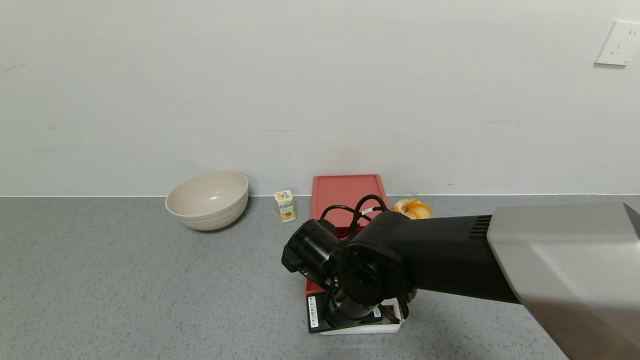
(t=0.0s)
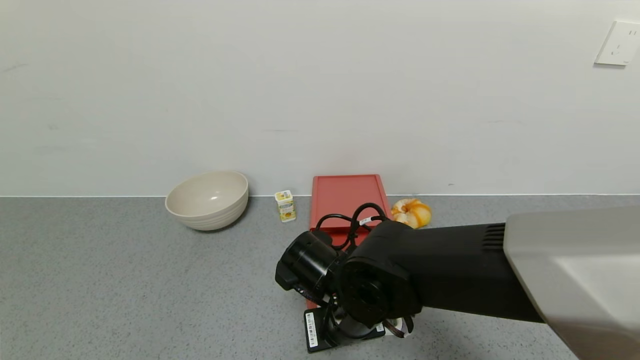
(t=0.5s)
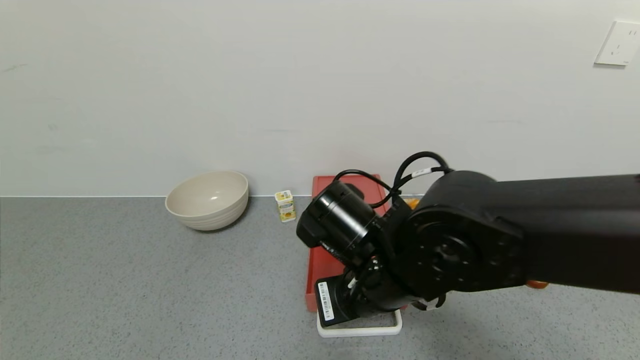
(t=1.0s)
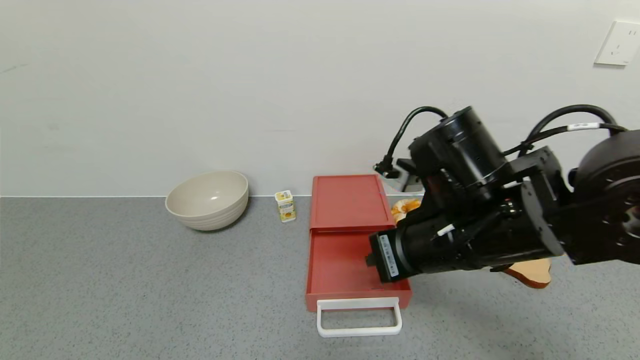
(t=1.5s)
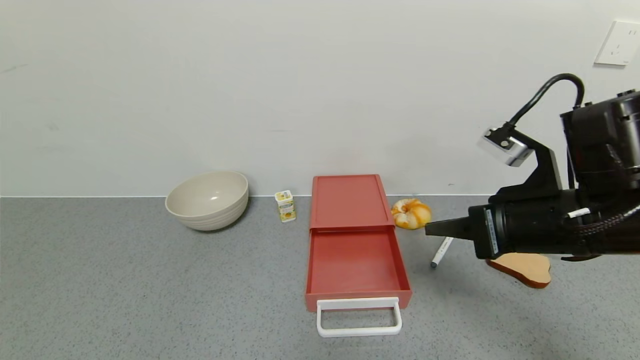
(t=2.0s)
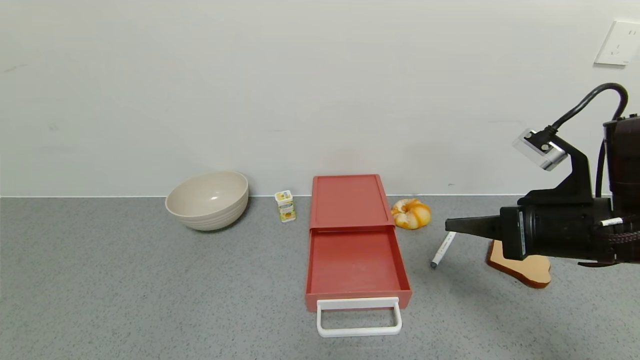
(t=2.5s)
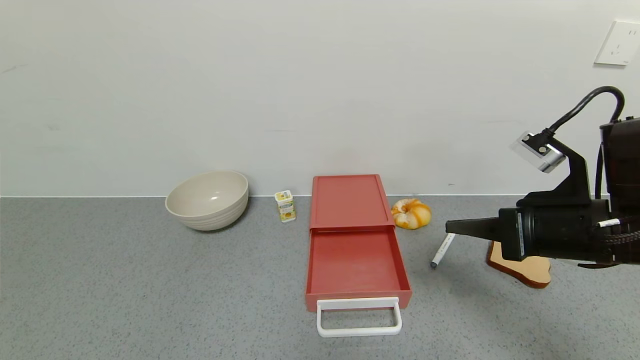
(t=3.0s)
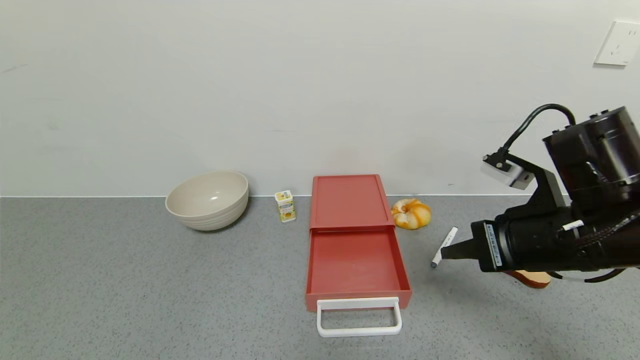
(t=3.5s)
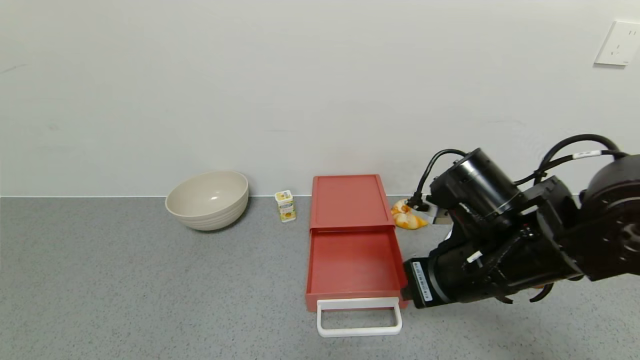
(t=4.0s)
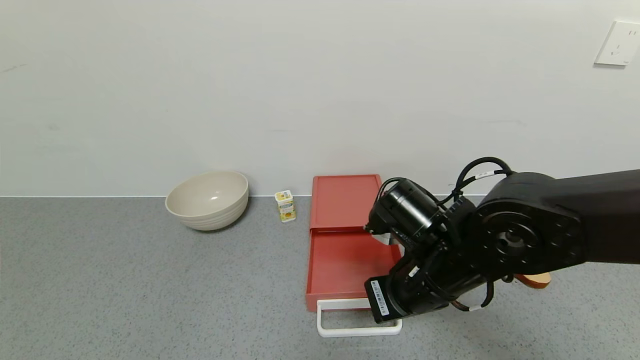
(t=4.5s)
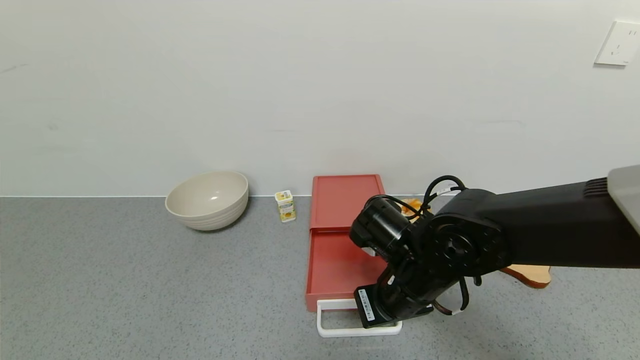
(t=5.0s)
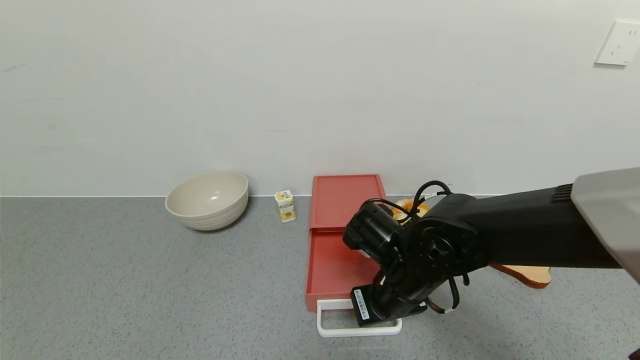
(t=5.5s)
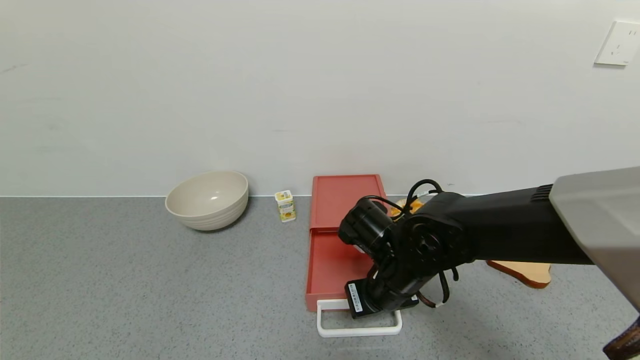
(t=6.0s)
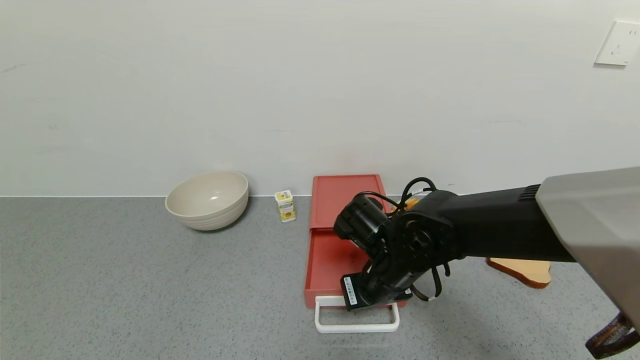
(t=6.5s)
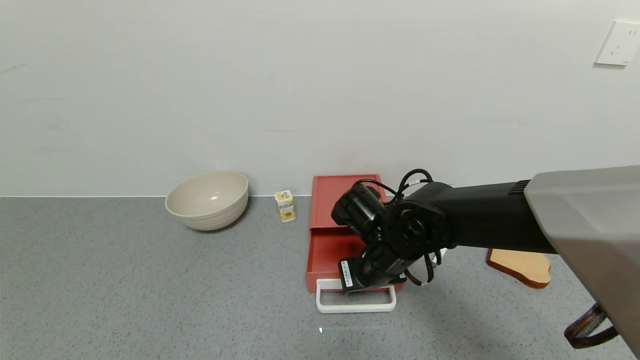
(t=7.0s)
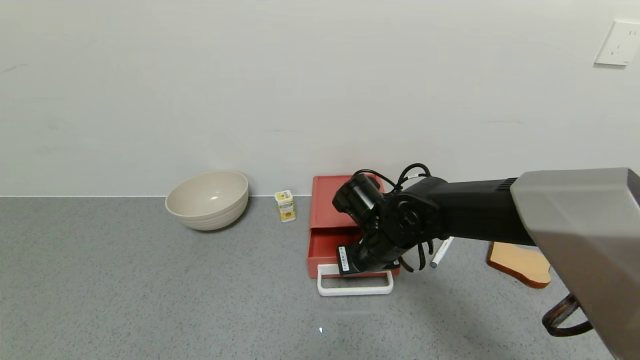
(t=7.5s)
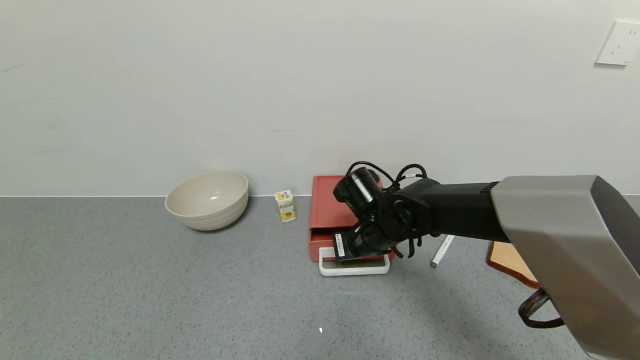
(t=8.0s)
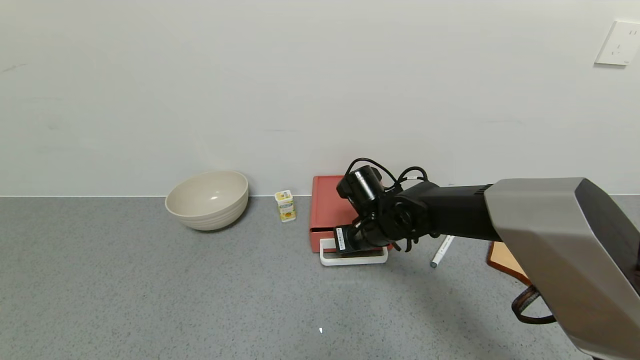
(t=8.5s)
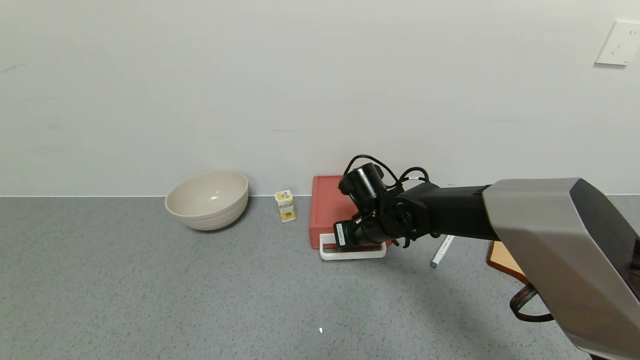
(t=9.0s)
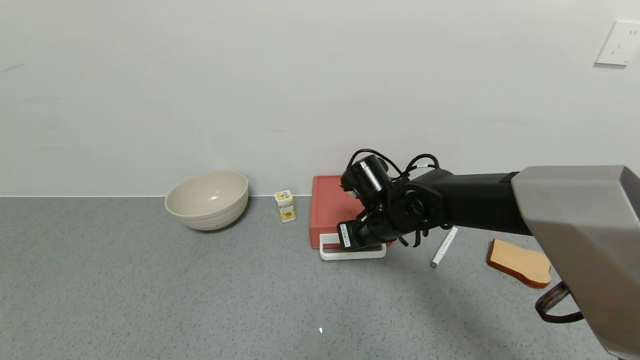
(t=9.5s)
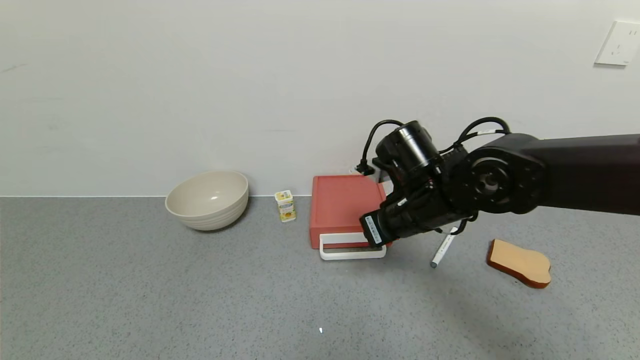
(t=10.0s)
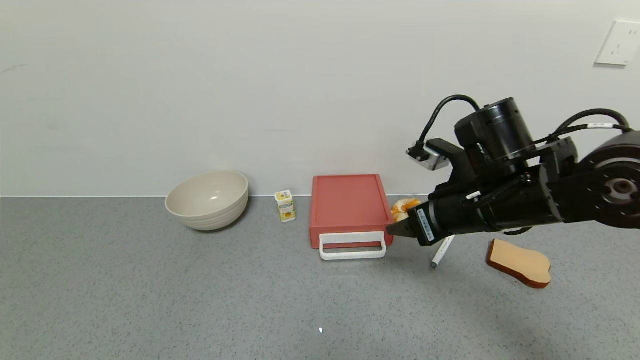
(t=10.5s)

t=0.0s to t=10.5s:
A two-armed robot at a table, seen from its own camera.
Task of the whole recording: use the gripper to open the drawer and close the red drawer.
Step, t=1.5s to t=10.0s: Close the red drawer with right gripper.
t=0.0s to t=2.0s: The right gripper heads to the right and upward, covering about 25 cm.
t=2.0s to t=4.0s: The right gripper travels to the left by roughly 5 cm.
t=4.0s to t=6.5s: The right gripper goes about 15 cm downward, to the left and forward.
t=6.5s to t=8.5s: The right gripper is displaced forward by roughly 10 cm.
t=8.5s to t=10.5s: The right gripper goes about 20 cm upward, to the right and backward, and opens up.

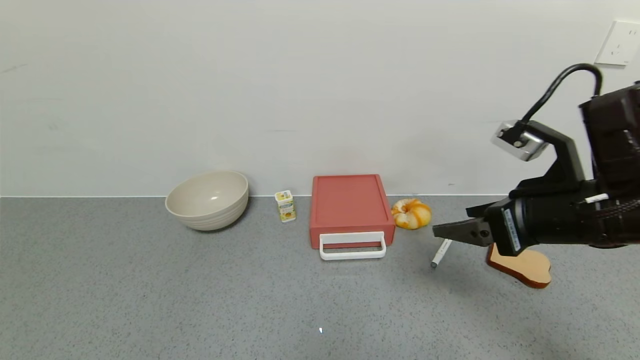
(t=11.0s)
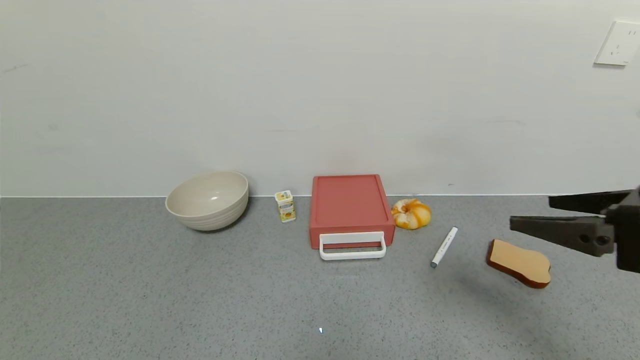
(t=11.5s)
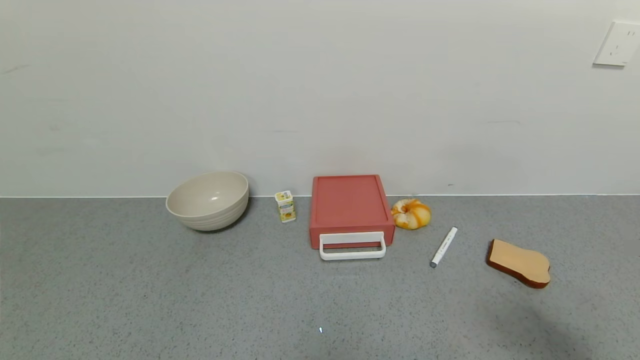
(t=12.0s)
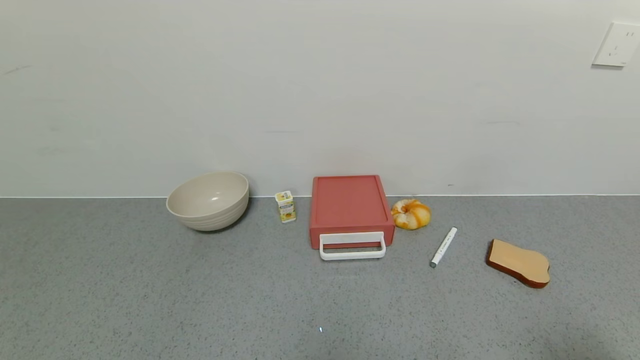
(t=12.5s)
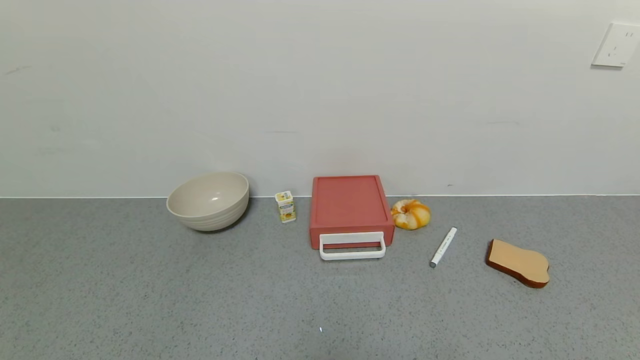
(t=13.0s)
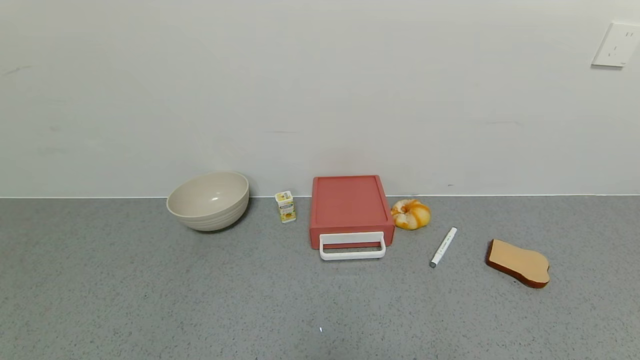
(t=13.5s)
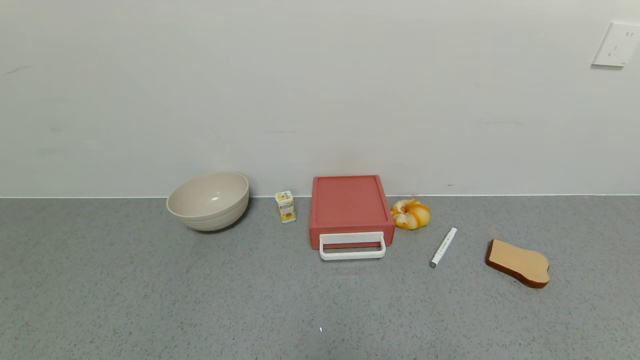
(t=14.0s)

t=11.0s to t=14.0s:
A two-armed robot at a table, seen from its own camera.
Task of the whole recording: use the gripper to open the drawer and close the red drawer.
t=11.0s to t=12.5s: The right gripper heads backward and to the right, covering some 25 cm.
